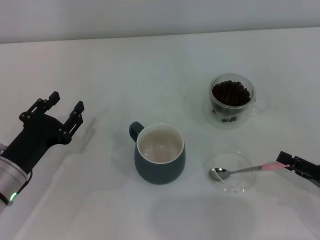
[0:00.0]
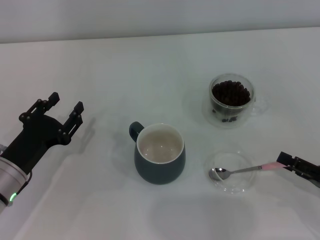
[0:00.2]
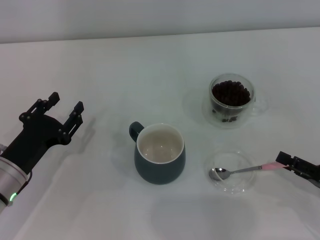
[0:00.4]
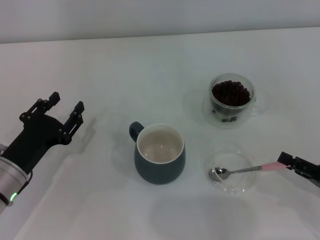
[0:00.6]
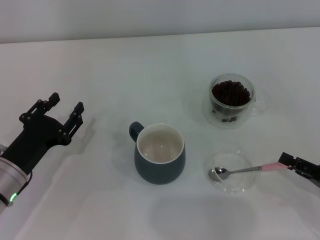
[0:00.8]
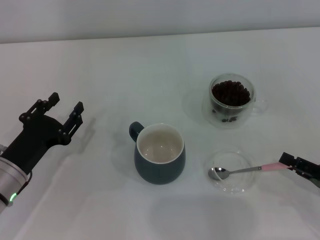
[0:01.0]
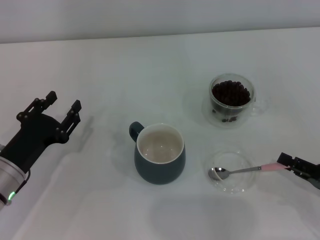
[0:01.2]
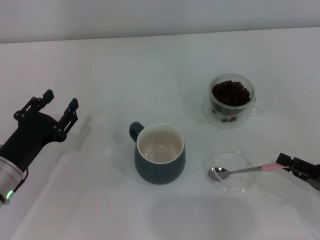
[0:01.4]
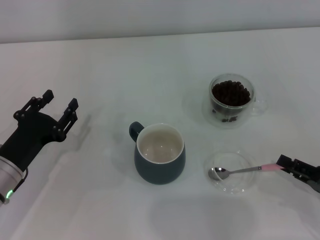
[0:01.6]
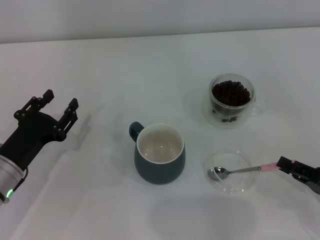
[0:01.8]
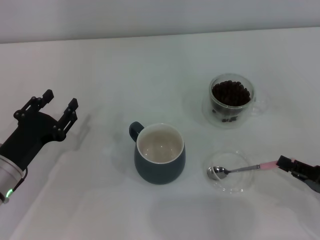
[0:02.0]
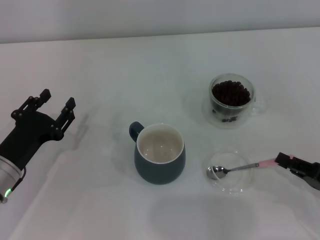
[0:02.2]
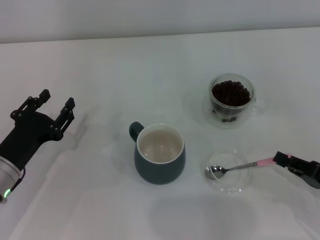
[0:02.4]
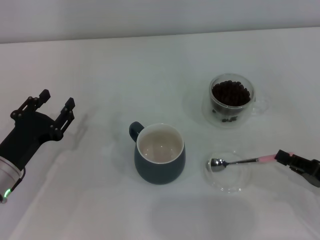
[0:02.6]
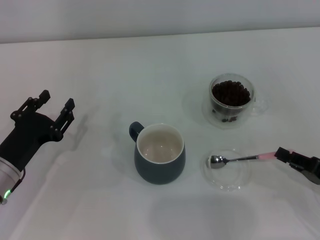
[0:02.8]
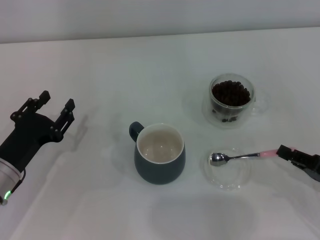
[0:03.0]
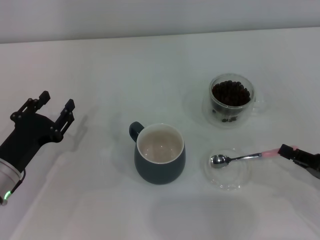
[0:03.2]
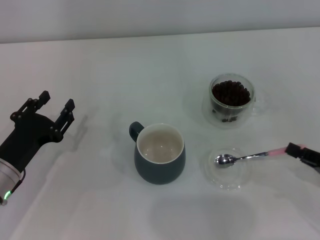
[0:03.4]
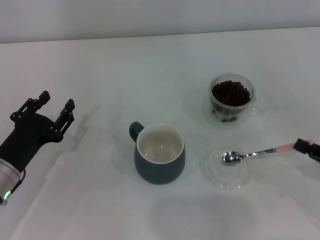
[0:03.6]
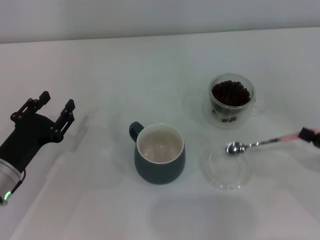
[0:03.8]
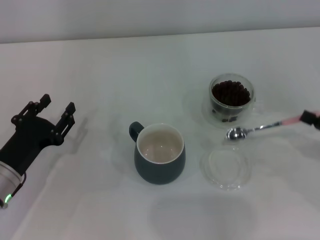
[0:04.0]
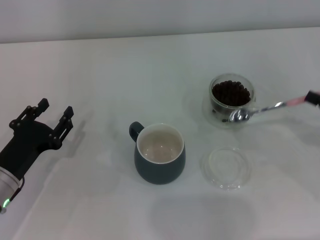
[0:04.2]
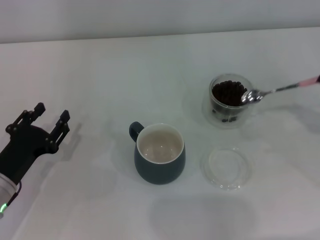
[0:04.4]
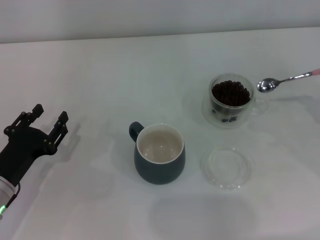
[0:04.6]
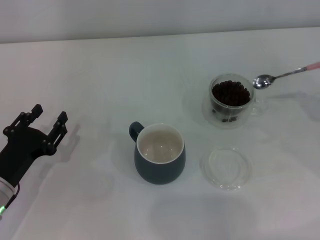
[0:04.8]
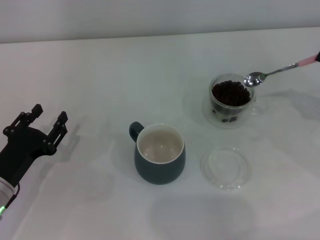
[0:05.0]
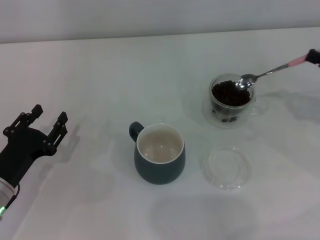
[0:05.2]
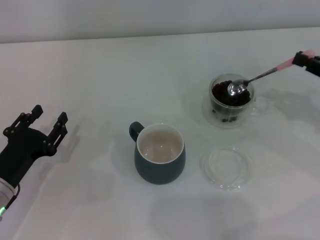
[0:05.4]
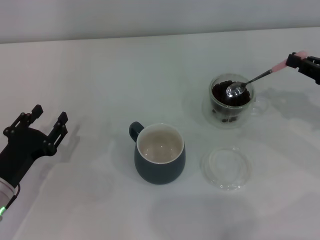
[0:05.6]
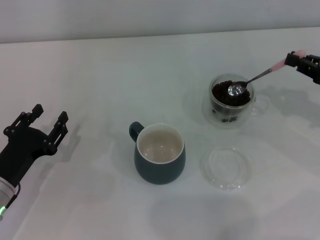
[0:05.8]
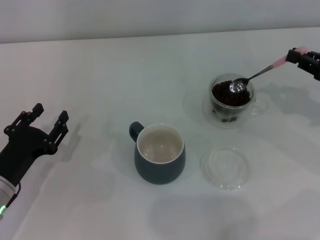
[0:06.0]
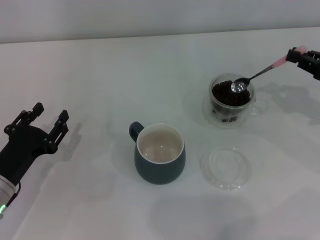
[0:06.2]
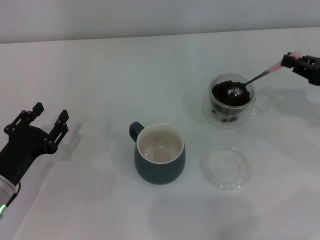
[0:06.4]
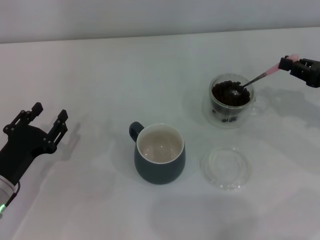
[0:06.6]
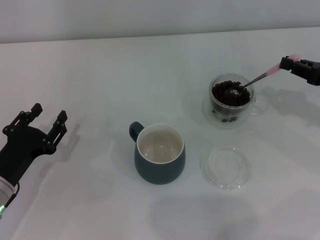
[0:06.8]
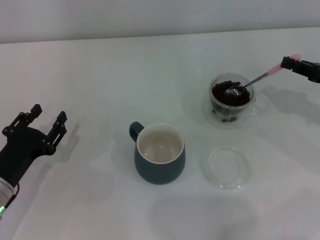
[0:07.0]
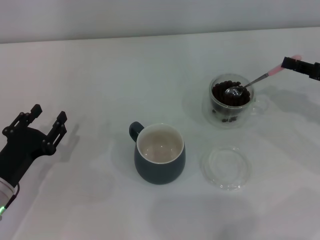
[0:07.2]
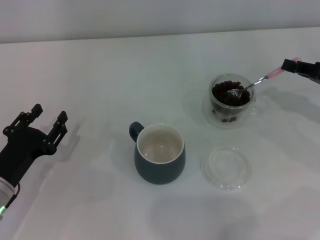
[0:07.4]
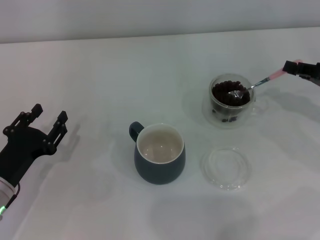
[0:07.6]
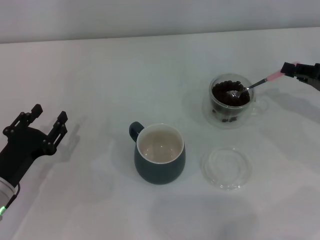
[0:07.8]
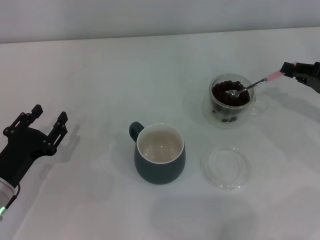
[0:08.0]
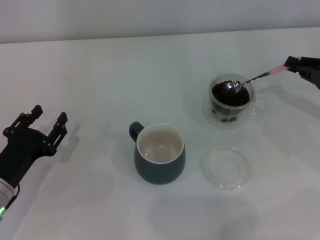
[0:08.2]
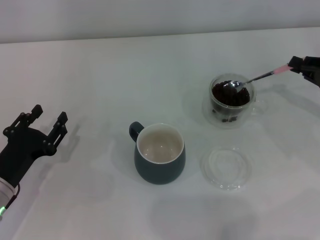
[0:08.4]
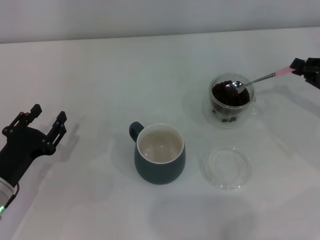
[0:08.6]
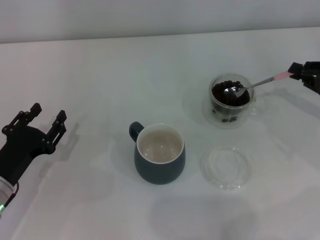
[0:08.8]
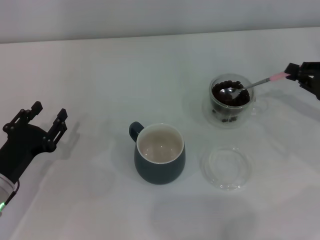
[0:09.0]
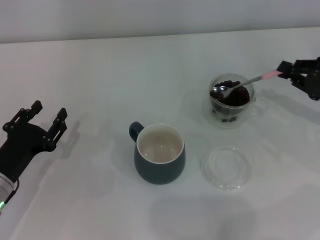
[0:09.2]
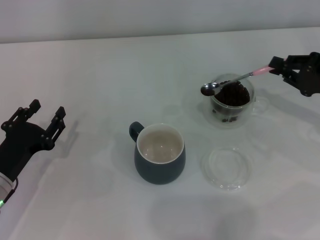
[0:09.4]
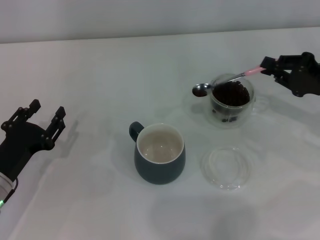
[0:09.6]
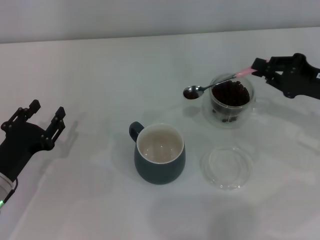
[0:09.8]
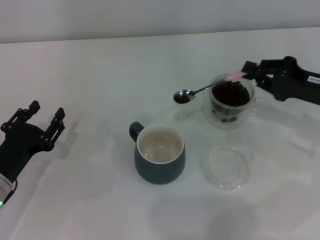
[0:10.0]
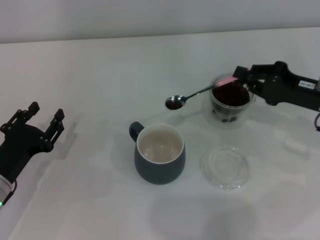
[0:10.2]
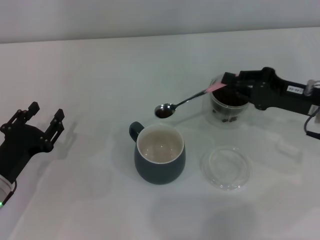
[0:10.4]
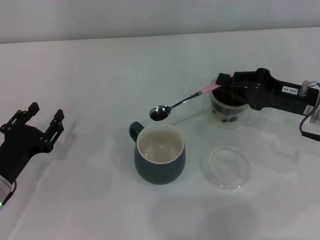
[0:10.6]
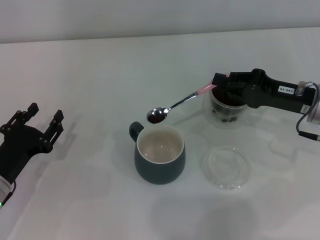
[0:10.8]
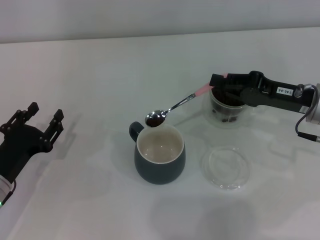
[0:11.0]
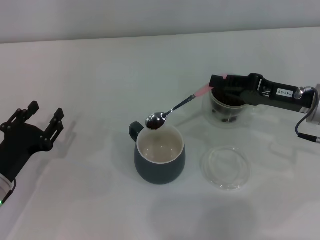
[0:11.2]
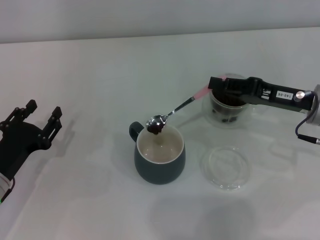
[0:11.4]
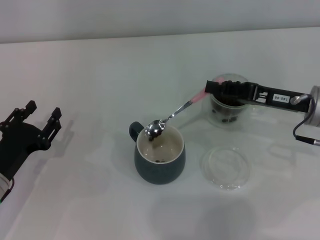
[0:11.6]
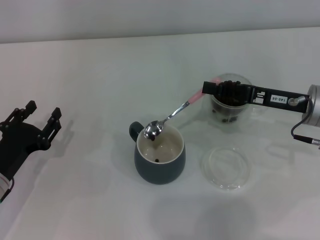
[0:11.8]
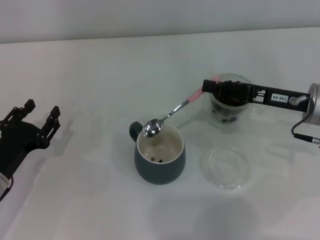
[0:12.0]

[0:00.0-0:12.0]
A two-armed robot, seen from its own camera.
Task of the whole recording: Use a pink spoon to take out the coffee beans from the glass and pour them into the gray cup.
Step, 0:00.0 to 0:03.6: Pick up the spoon with the right gripper.
0:00.0 to 0:01.6: The right gripper closes up.
0:01.6 to 0:03.0: The right gripper closes up.
0:03.0 to 0:04.4: The right gripper heads upward, forward and to the right, covering about 10 cm.
0:04.4 to 0:06.0: The right gripper is displaced forward by roughly 5 cm.
0:09.0 to 0:10.4: The right gripper travels to the left by about 10 cm.

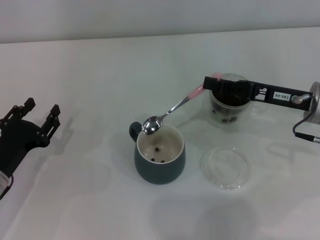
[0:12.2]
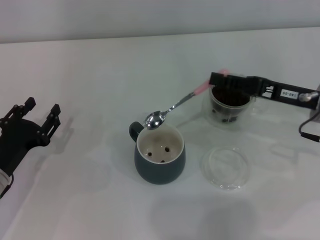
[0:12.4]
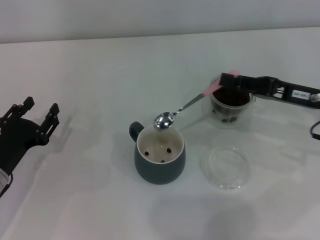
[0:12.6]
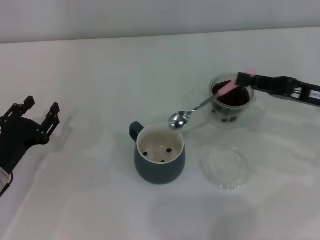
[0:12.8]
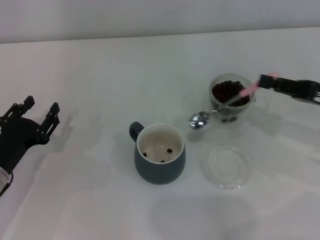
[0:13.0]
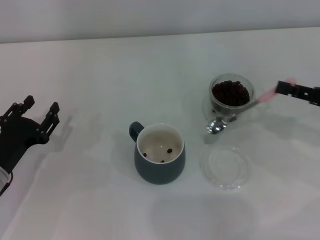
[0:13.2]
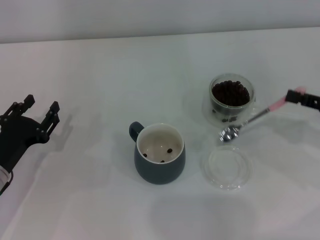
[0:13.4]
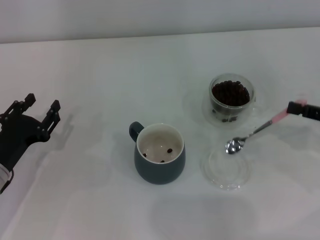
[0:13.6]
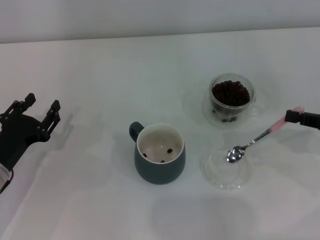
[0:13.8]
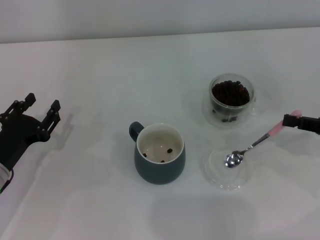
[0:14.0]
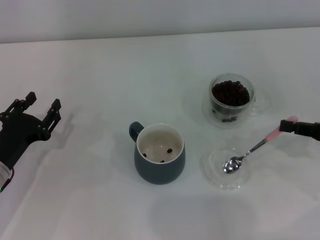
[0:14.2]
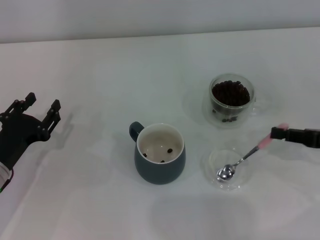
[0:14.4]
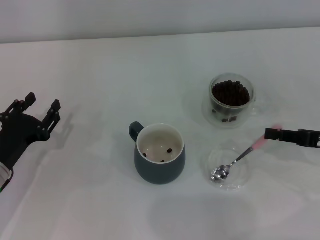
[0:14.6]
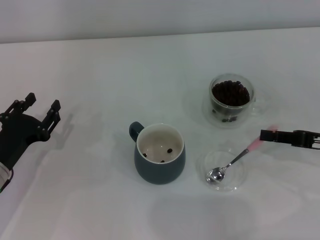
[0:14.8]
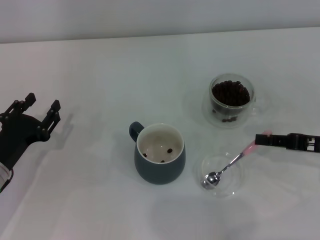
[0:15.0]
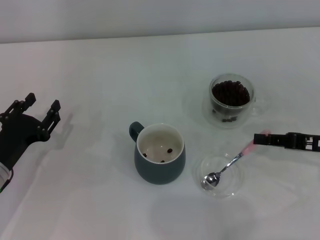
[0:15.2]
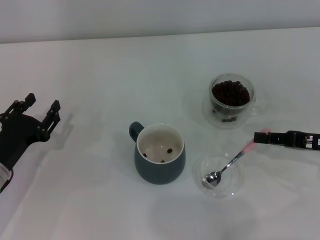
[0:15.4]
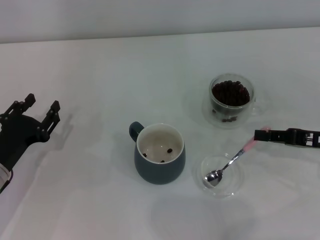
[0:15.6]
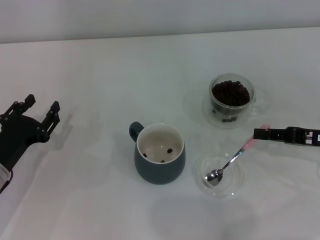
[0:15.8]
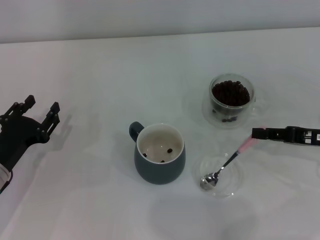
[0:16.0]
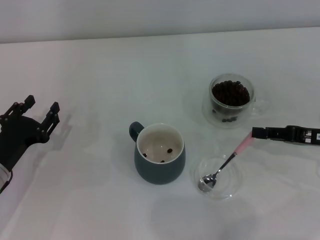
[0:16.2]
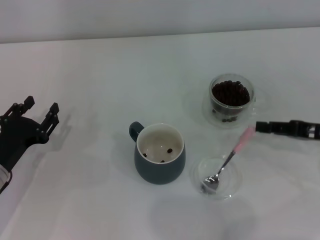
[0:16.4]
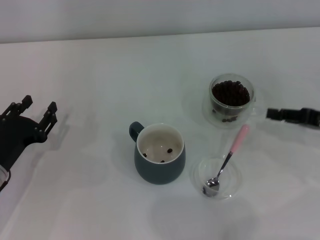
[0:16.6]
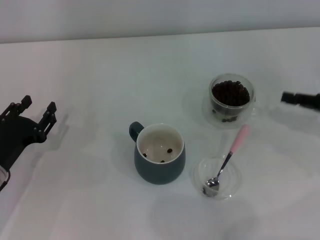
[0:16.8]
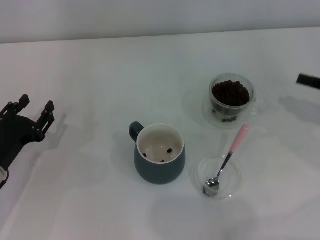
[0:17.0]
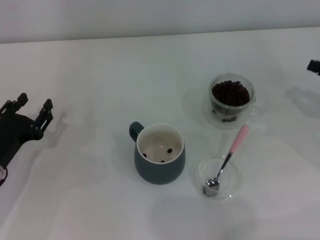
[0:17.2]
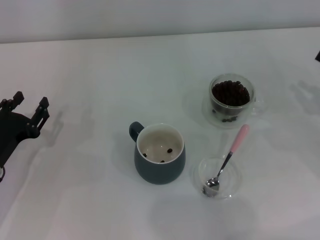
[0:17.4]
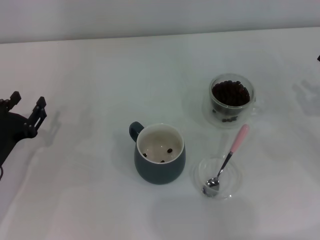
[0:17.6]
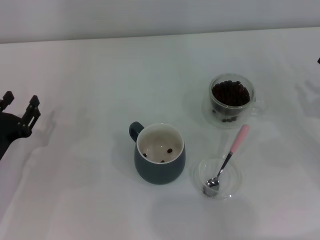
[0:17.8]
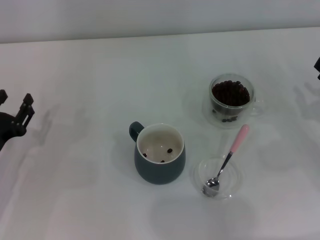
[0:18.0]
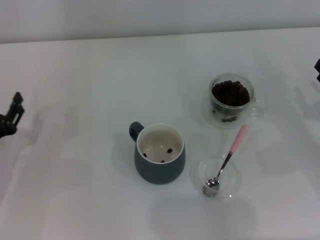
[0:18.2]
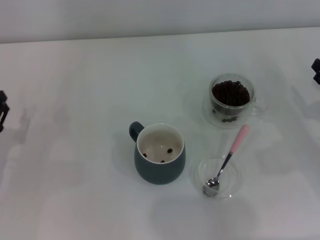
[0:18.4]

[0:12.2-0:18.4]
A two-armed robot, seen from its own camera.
Task of the whole recording: Use a pink spoon to take out the coffee beans from the glass and pour them into the gray cup.
Step, 0:12.8 to 0:16.6: Place the spoon back in its original place with the right gripper.
0:12.2 to 0:13.8: The right gripper moves to the right and backward, roughly 15 cm.
0:13.8 to 0:16.8: The grippers move only a little.
0:16.8 to 0:18.4: The right gripper shifts by some 5 cm.

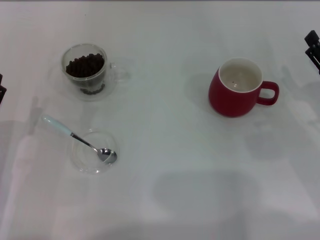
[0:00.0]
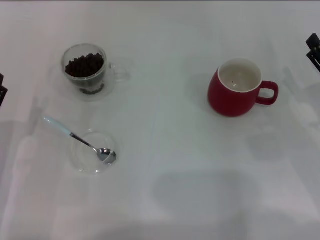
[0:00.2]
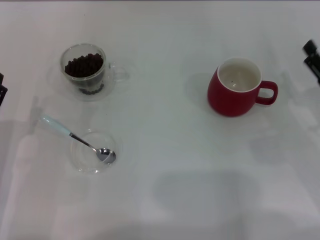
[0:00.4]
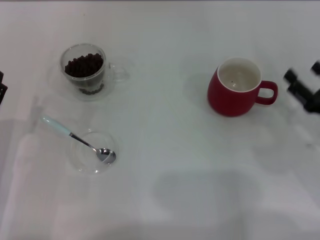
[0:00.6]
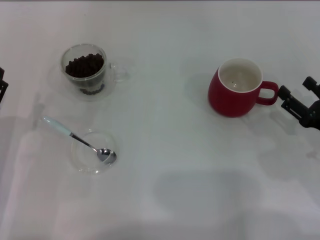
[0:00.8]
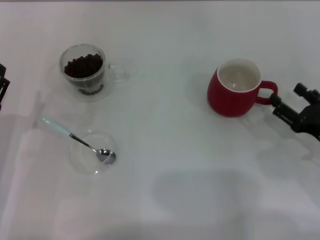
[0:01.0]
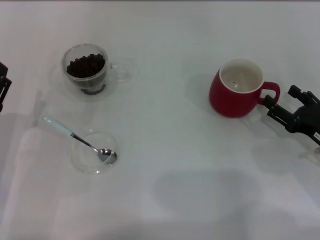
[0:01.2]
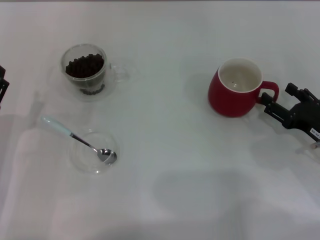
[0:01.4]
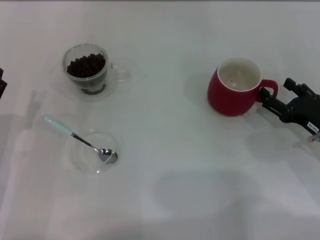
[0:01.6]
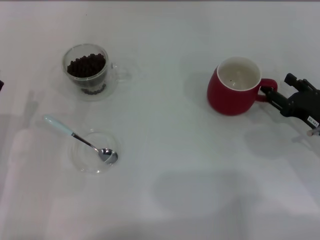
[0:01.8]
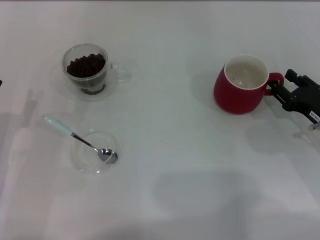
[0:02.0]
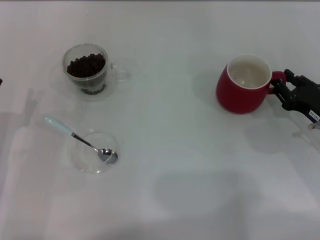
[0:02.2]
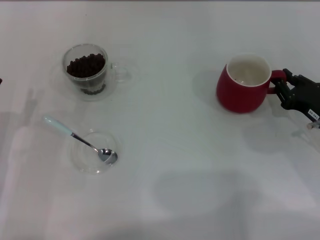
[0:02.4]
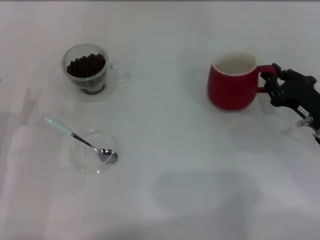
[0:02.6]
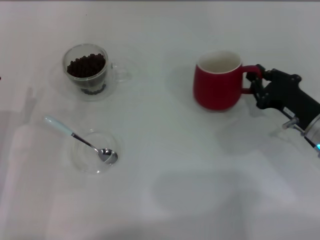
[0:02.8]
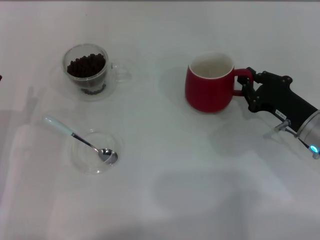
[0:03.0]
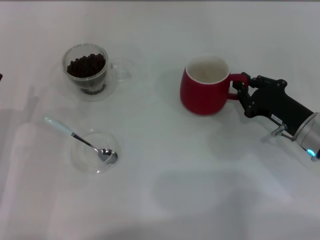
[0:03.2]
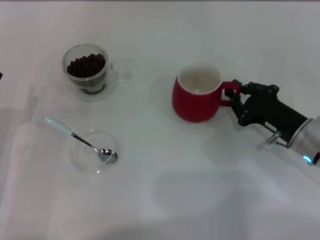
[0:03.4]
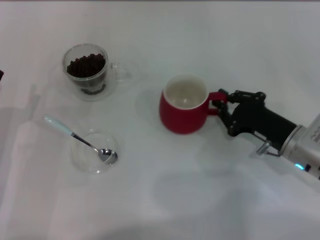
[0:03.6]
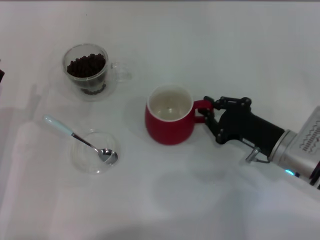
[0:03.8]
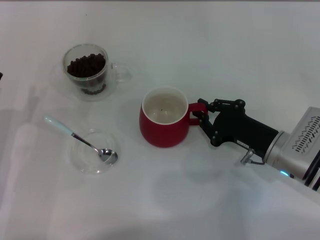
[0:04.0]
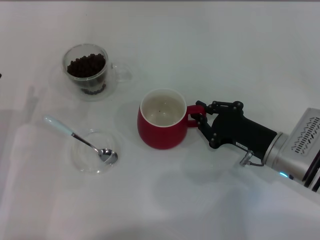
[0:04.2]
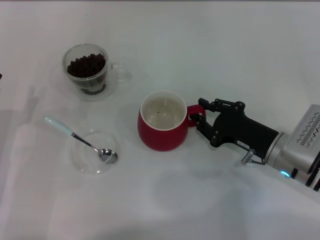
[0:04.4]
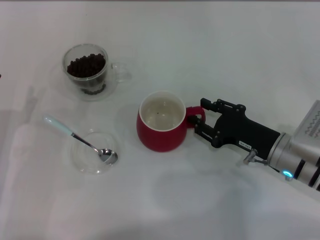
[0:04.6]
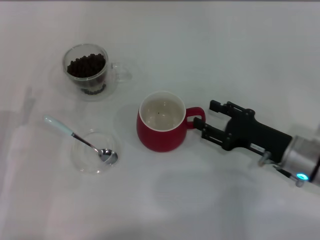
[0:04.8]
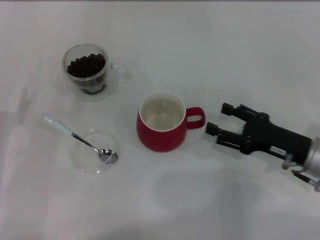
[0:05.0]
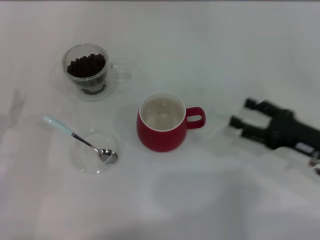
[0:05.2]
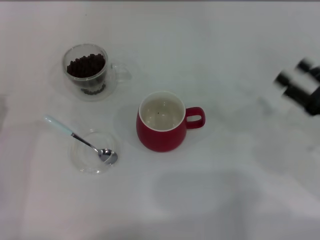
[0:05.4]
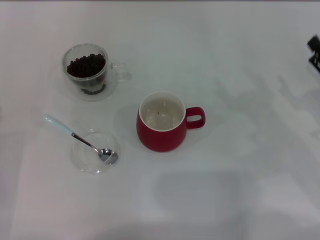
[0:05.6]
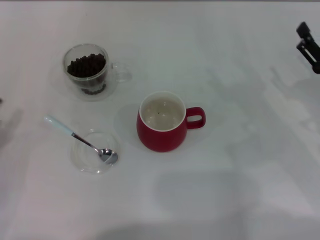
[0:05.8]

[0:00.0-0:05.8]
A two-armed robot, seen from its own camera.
Task of the whole recording: Use a blue spoon to take out the coffee beans from the glass and pour them into the red cup.
Step, 0:00.0 to 0:05.0: Move the cup to the center of view with the left gripper.
0:01.4 to 0:02.8: The right gripper ends up about 5 cm from where it was, and closes its fingers.
0:02.8 to 0:04.4: The right gripper travels to the left by approximately 5 cm.
0:04.4 to 0:05.8: The right gripper heads to the right, covering roughly 10 cm, and opens its fingers. Meanwhile the left gripper shifts some 5 cm to the left.